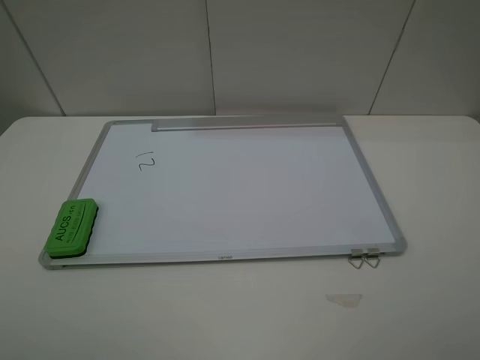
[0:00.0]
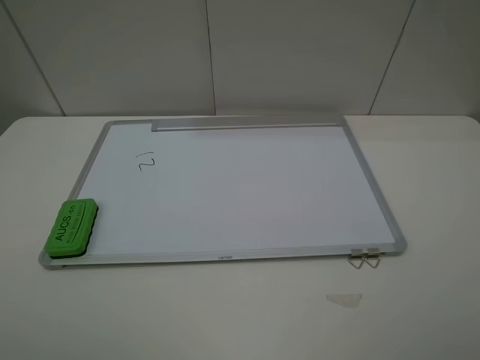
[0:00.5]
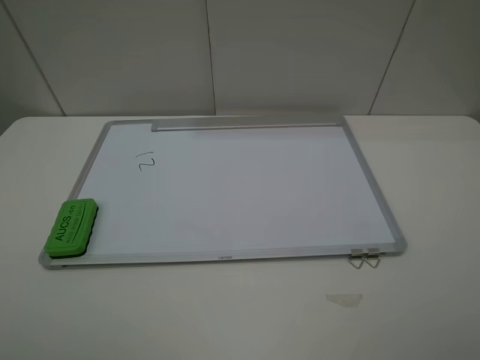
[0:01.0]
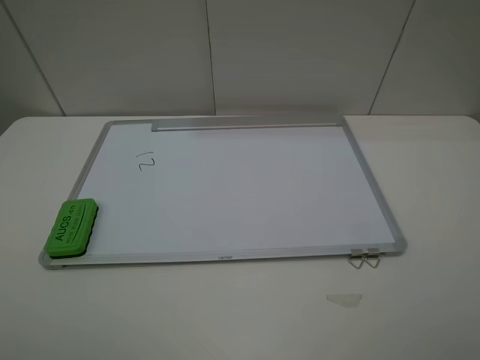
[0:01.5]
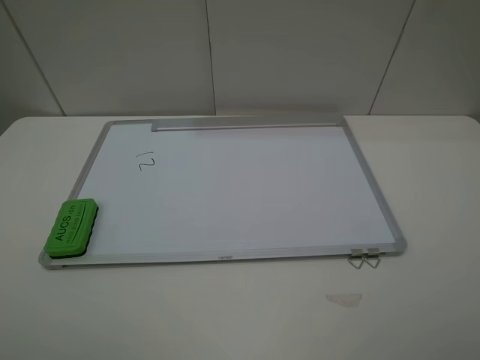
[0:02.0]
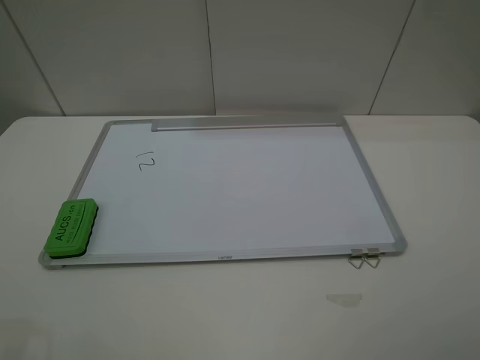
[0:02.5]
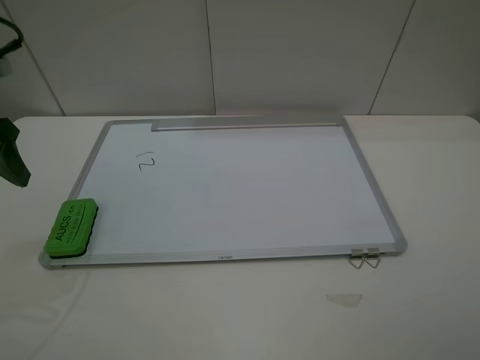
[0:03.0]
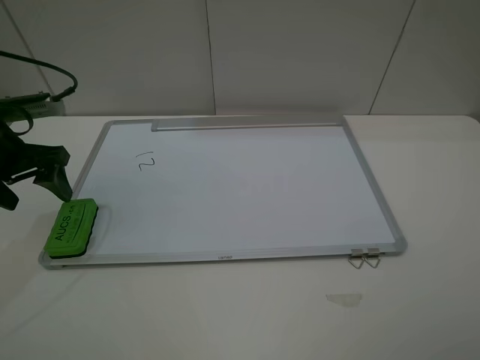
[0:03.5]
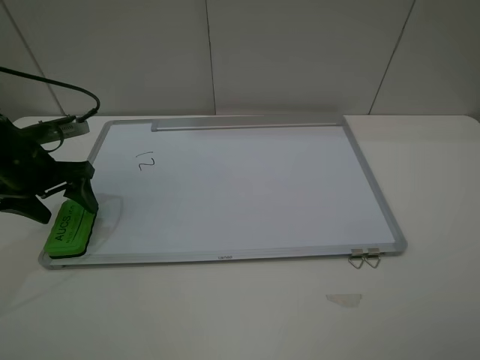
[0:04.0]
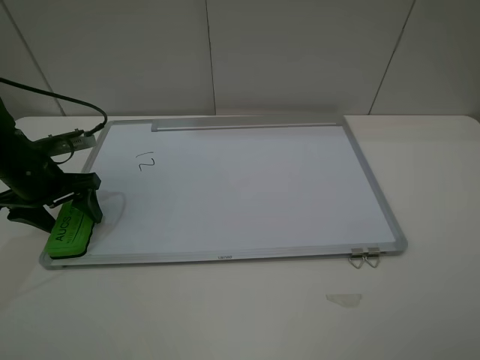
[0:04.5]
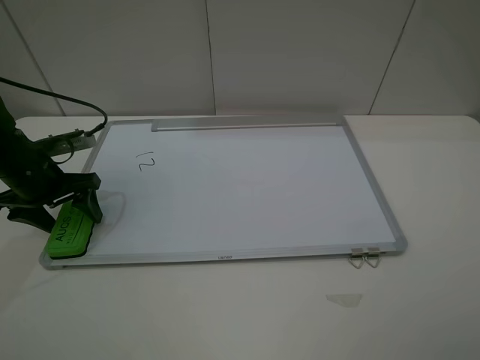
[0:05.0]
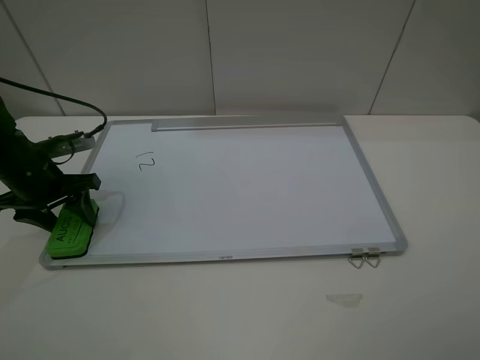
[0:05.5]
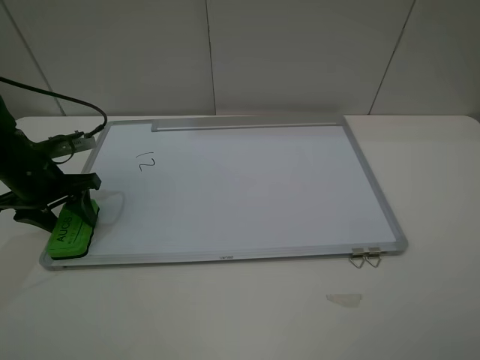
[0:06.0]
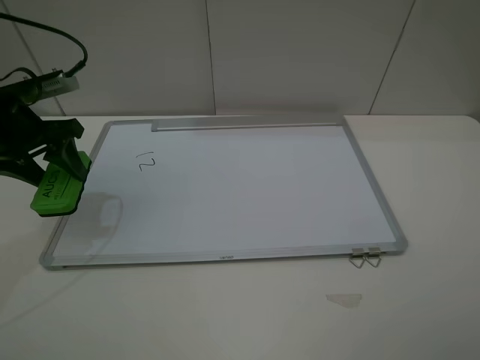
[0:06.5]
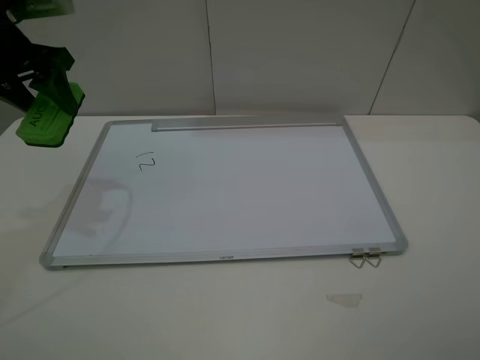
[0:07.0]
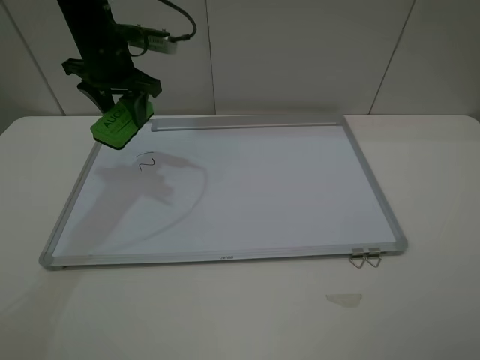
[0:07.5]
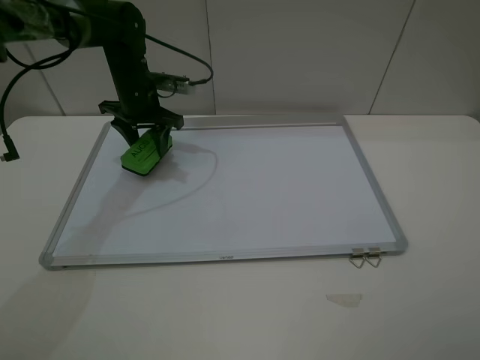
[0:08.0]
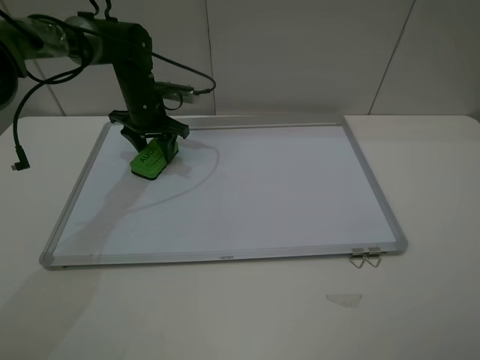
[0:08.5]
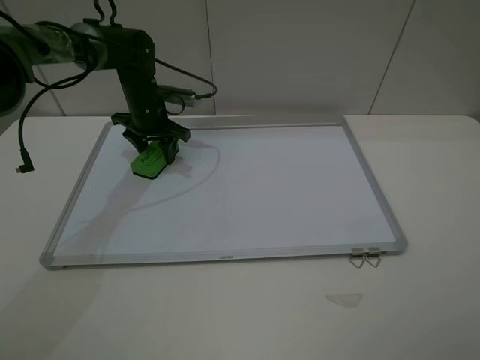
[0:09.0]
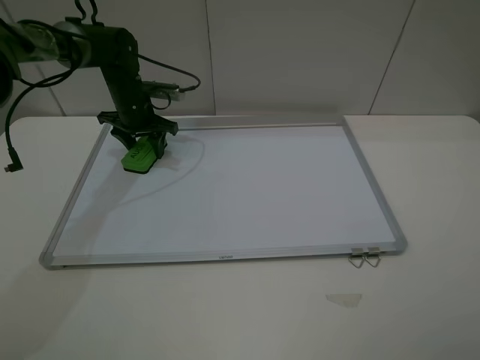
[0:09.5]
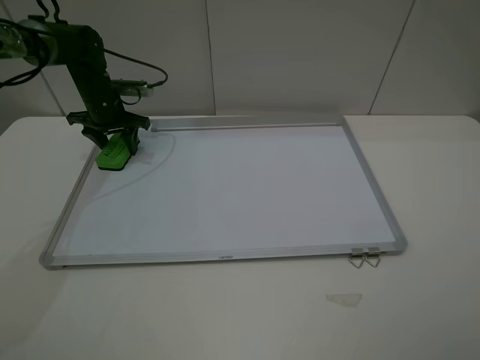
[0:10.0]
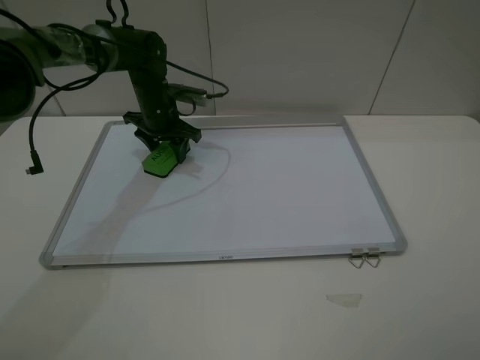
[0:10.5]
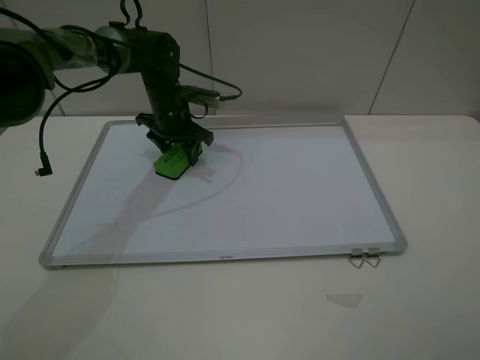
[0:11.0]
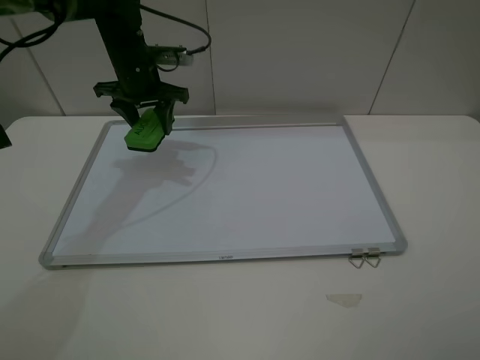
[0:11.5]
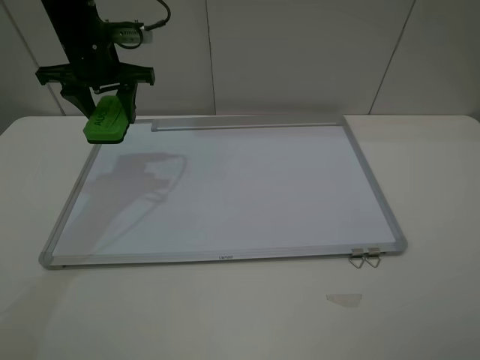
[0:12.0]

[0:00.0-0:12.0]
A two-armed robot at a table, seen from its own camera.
Step, 0:00.0 to 0:05.5: Grasp the eraser with the left gripper.
Step, 0:06.0 to 0:11.0: Grasp the eraser and wipe the blackboard with the left gripper.
0:02.0 to 0:04.0: The left gripper goes some 35 cm forward and downward.
0:04.0 to 0:06.0: The left gripper closes.
0:06.0 to 0:08.0: The left gripper travels forward and to the right by approximately 20 cm, and travels upward and back again, approximately 15 cm each way.
0:08.0 to 0:10.0: The left gripper heads to the left, covering some 10 cm.
0:10.0 to 0:12.0: The left gripper heads upward and backward, covering about 15 cm.

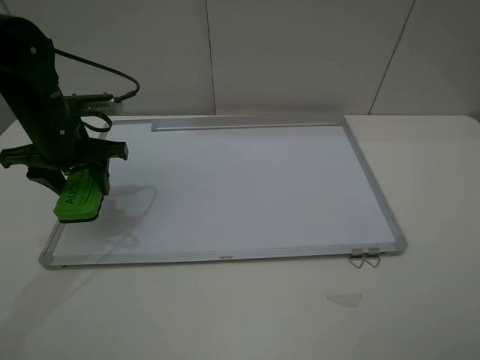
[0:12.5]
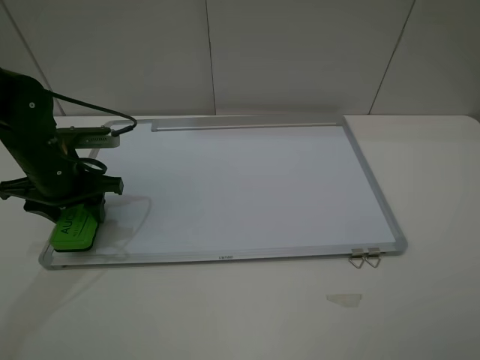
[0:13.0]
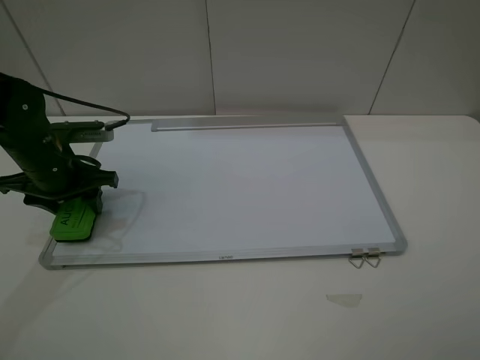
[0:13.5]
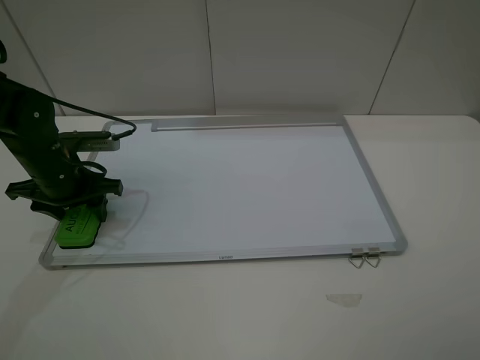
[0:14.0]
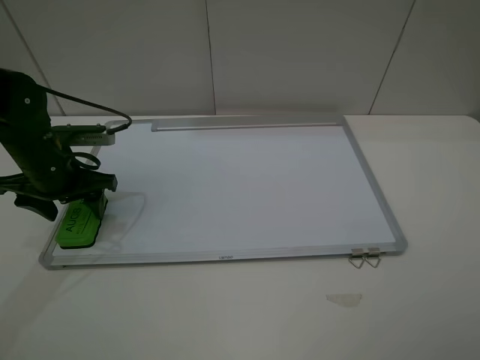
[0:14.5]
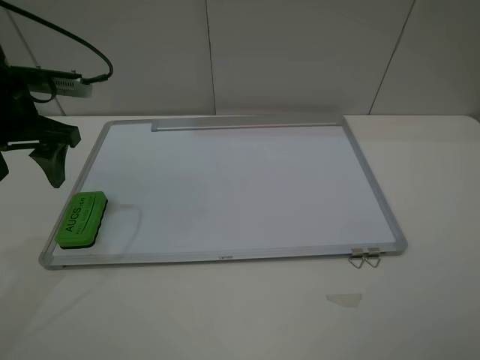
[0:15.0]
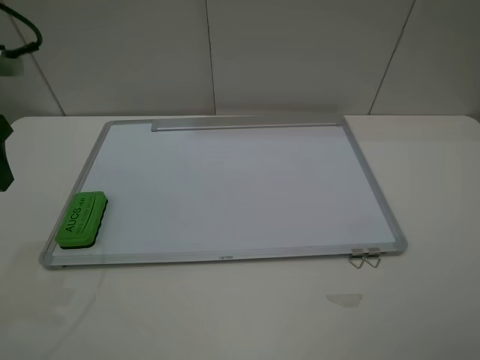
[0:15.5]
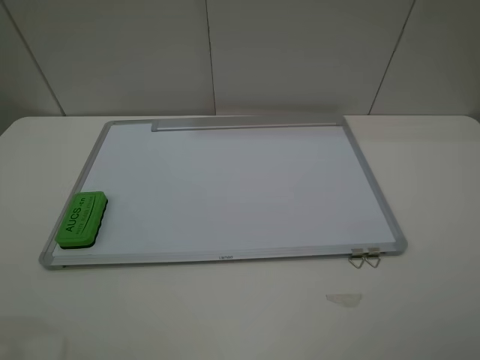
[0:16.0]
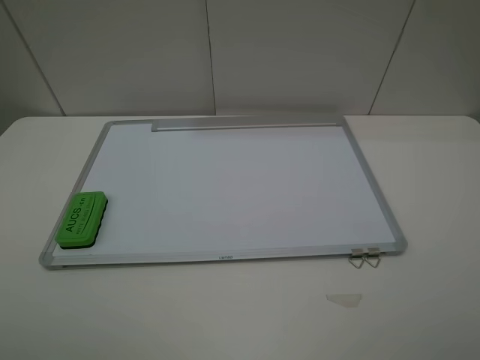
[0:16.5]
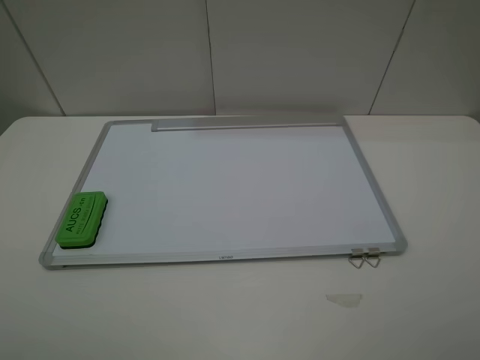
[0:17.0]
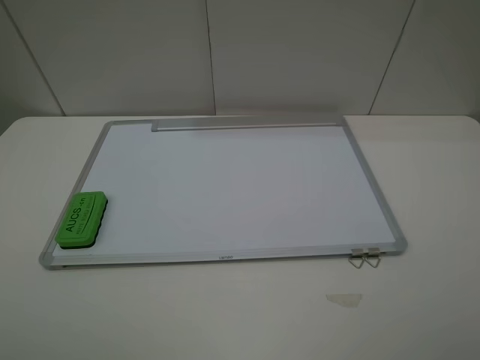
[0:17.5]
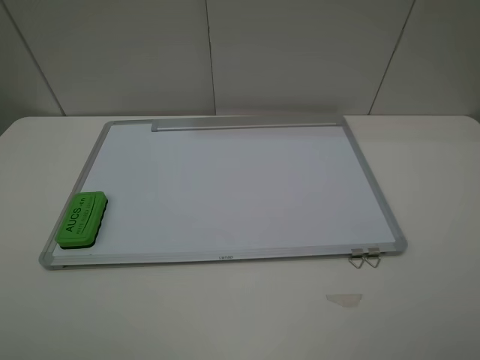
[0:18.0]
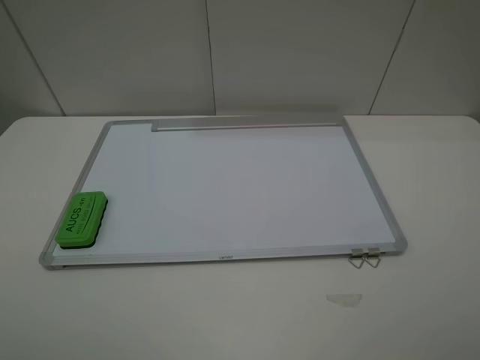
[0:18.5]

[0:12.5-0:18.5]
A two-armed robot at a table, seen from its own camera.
Step, 0:12.5 to 0:14.5: Place the eraser with the left gripper.
0:12.5 to 0:14.5: The left gripper opens.
0:14.5 to 0:16.5: The left gripper is displaced backward and upward by about 30 cm.
